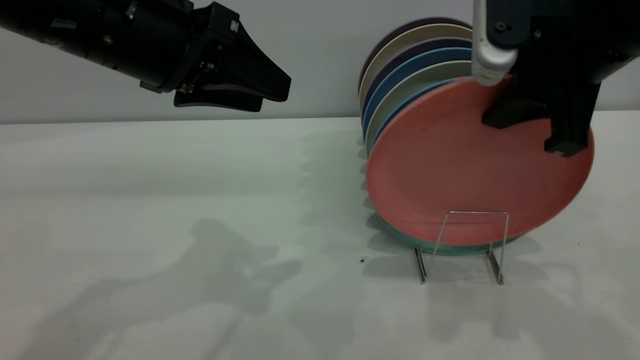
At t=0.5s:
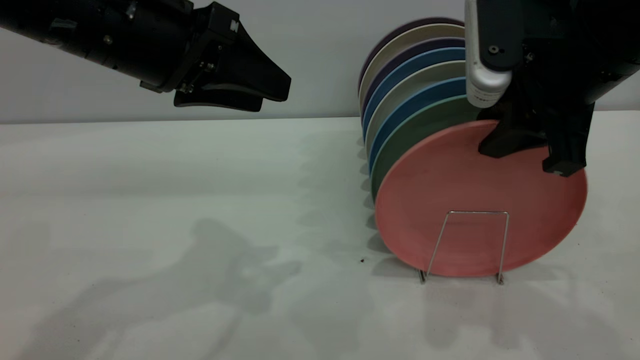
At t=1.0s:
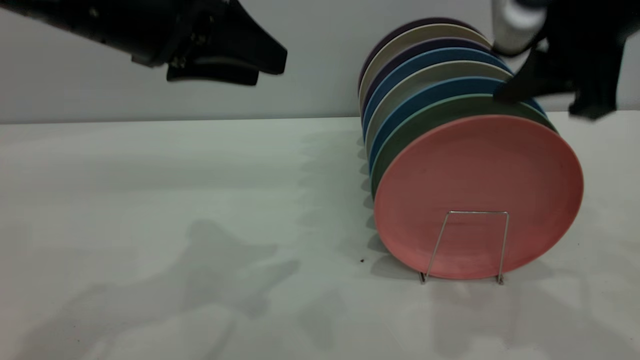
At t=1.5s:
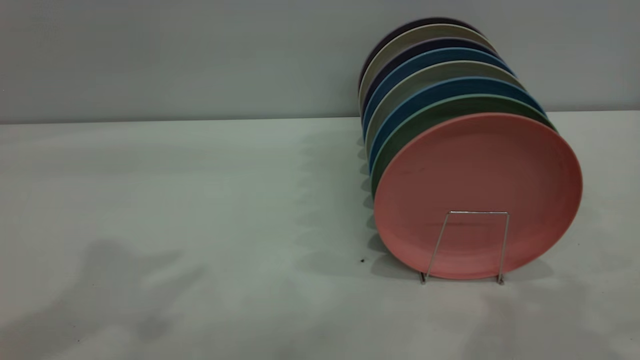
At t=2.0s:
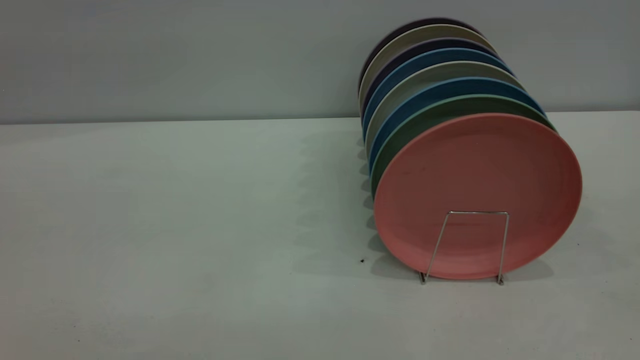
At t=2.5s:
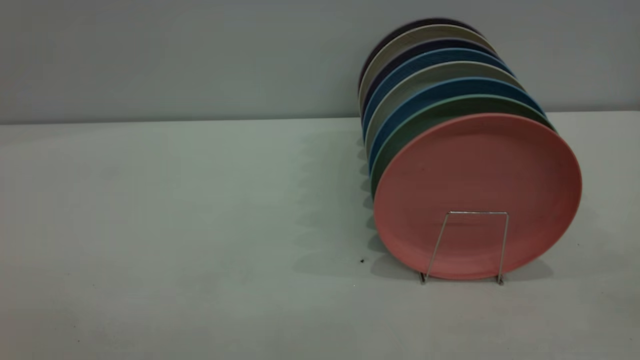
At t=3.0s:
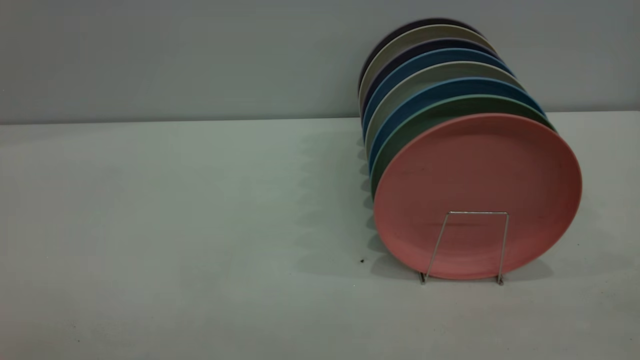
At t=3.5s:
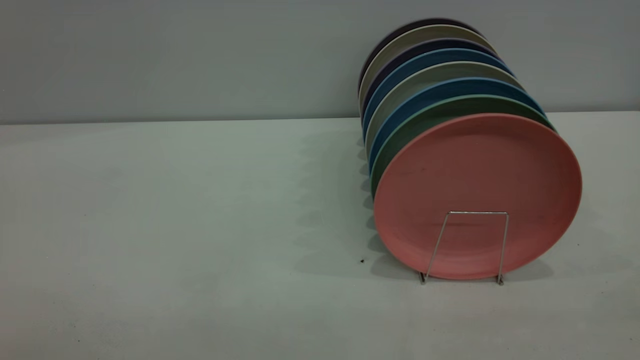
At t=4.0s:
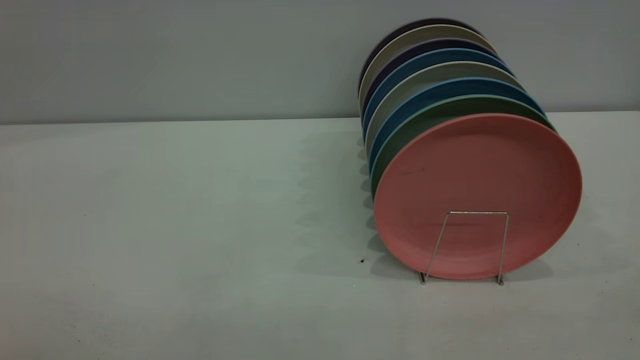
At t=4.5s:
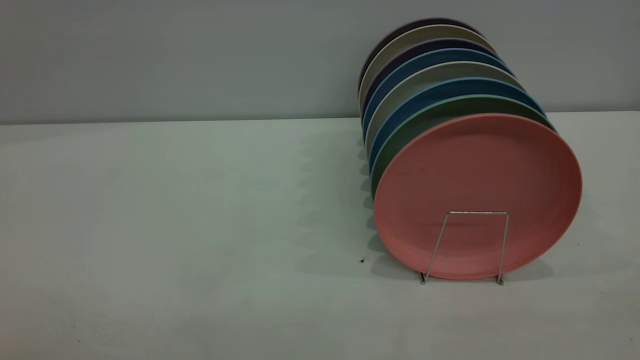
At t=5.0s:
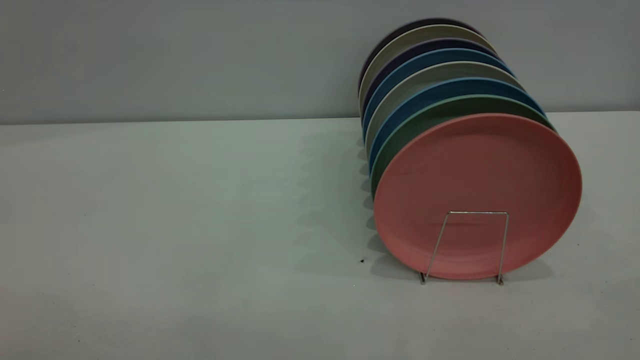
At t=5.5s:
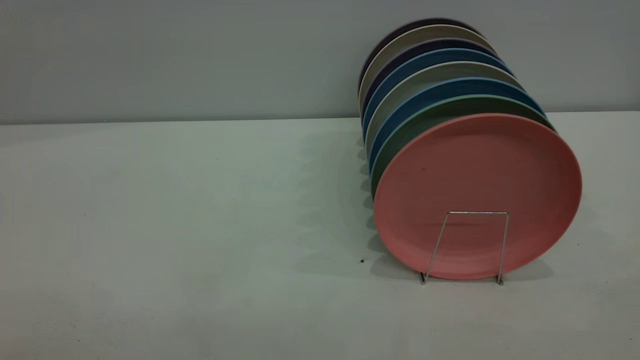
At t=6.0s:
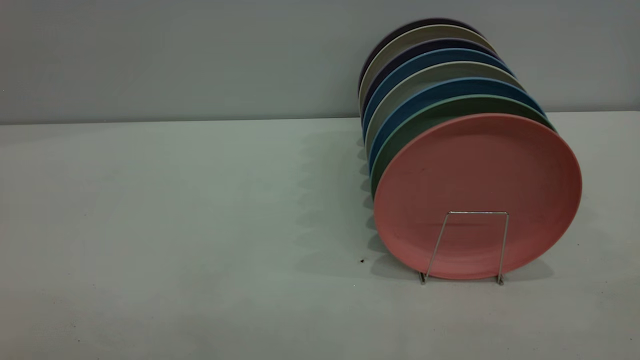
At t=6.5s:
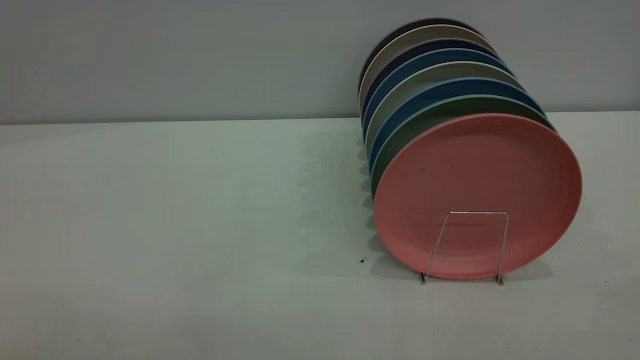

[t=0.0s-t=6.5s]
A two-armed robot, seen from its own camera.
Task of the whole recording: put the plate on the plate rack.
t=0.0s to t=2.0s: The right gripper travels backward and upward by roughly 25 cm, and opens up; the left gripper shifts about 35 cm backward, upward and to the left.
